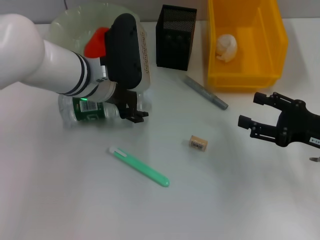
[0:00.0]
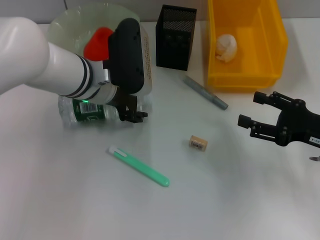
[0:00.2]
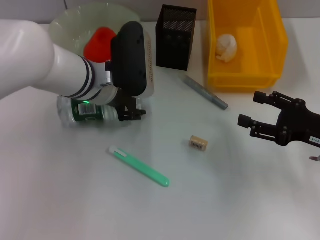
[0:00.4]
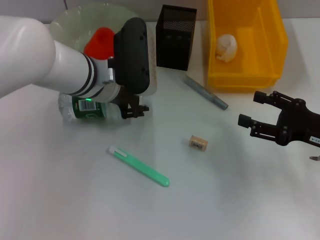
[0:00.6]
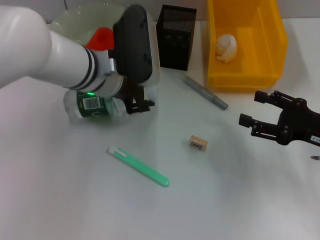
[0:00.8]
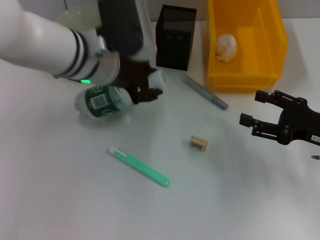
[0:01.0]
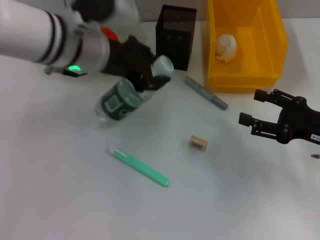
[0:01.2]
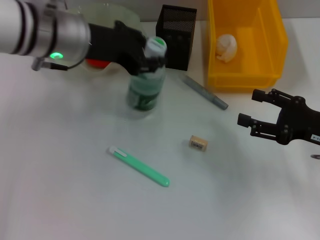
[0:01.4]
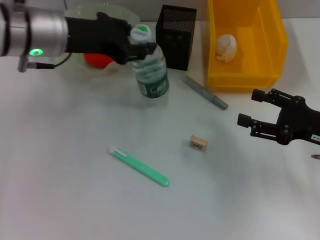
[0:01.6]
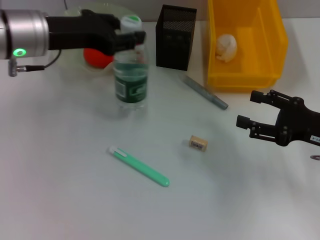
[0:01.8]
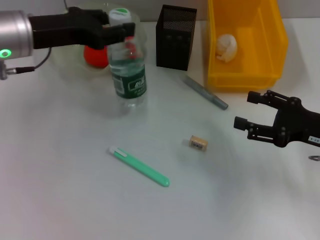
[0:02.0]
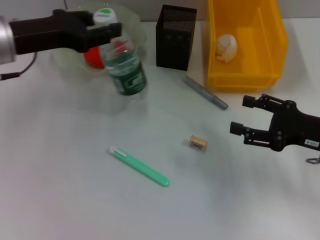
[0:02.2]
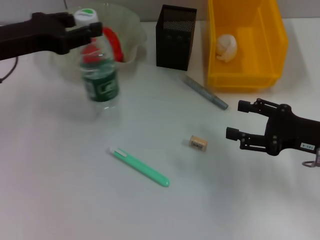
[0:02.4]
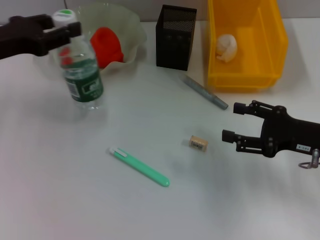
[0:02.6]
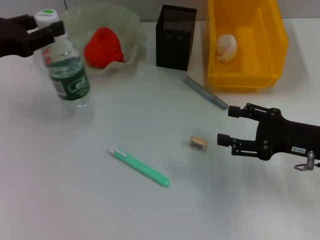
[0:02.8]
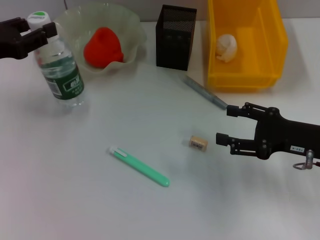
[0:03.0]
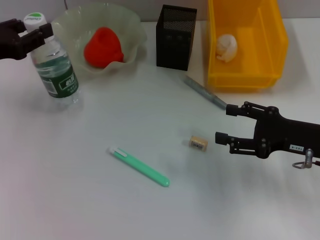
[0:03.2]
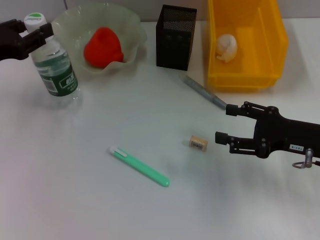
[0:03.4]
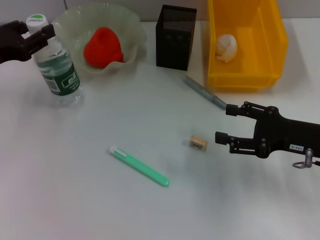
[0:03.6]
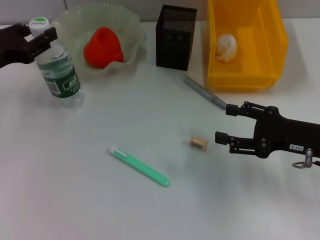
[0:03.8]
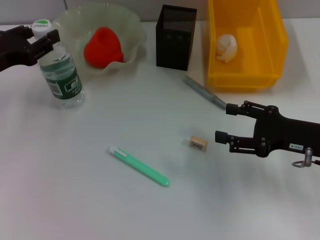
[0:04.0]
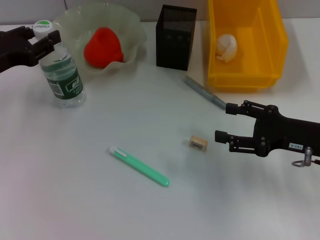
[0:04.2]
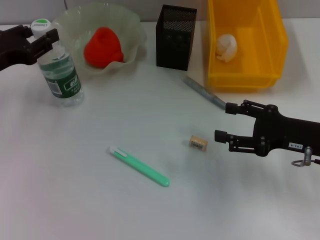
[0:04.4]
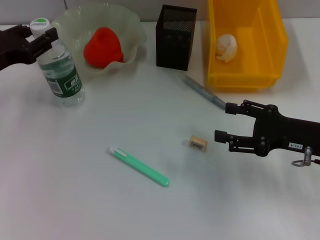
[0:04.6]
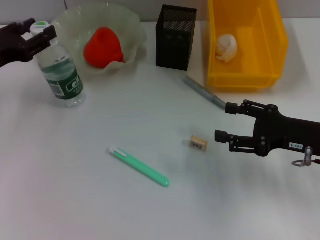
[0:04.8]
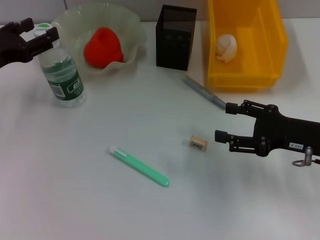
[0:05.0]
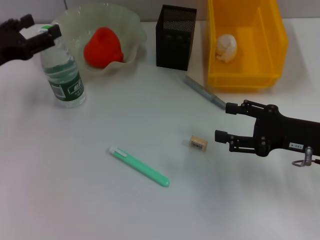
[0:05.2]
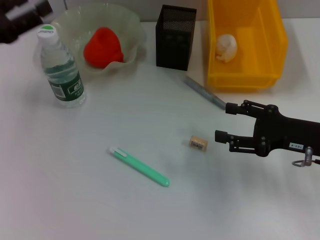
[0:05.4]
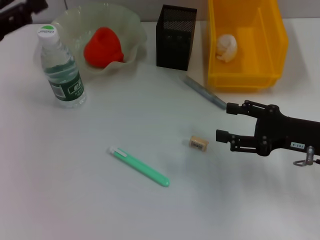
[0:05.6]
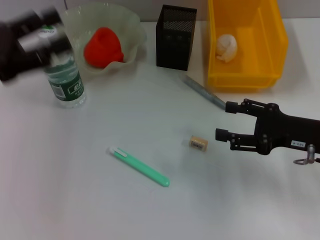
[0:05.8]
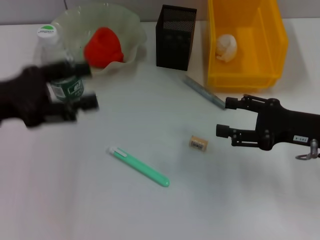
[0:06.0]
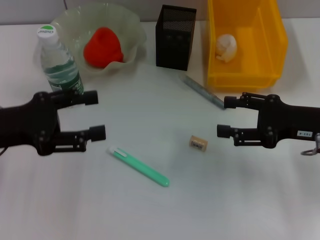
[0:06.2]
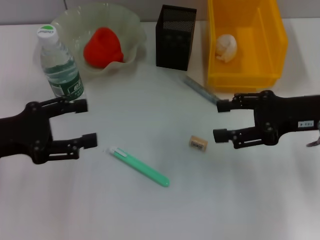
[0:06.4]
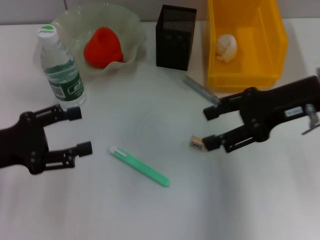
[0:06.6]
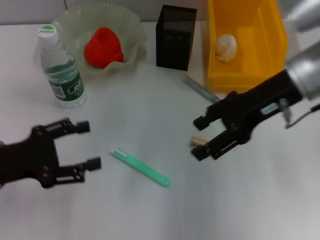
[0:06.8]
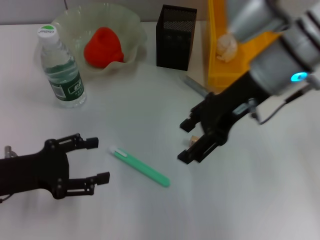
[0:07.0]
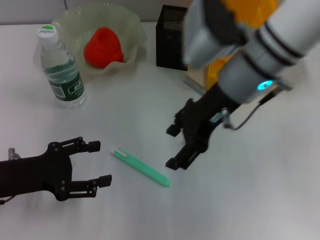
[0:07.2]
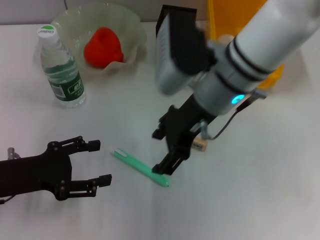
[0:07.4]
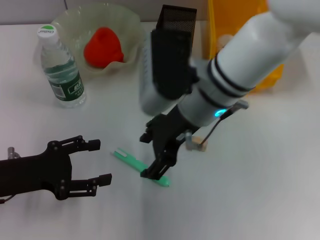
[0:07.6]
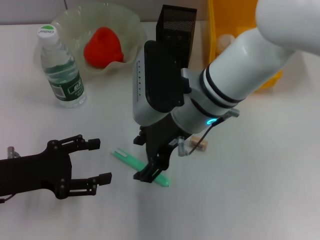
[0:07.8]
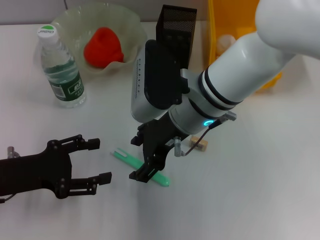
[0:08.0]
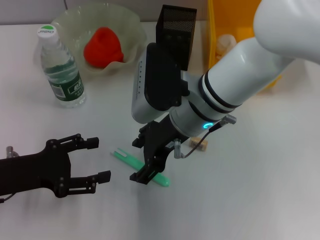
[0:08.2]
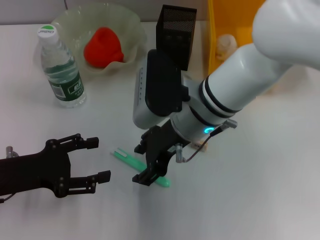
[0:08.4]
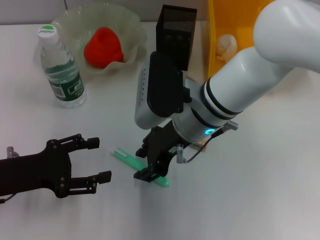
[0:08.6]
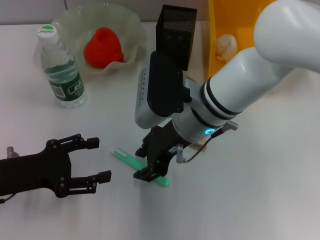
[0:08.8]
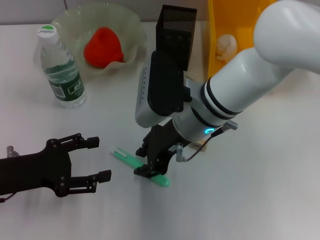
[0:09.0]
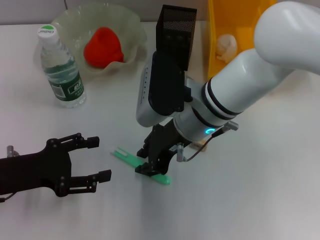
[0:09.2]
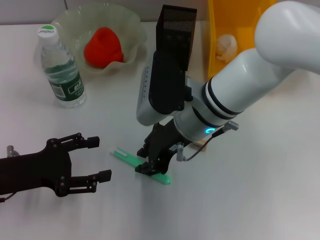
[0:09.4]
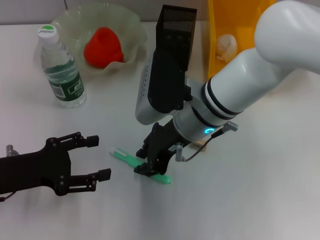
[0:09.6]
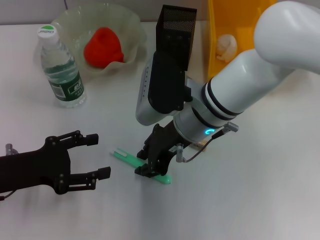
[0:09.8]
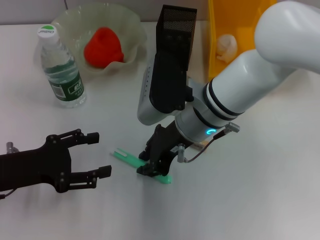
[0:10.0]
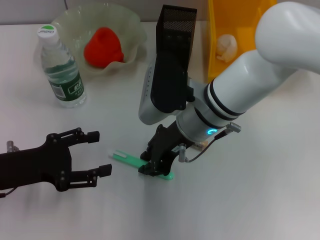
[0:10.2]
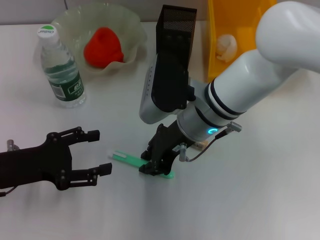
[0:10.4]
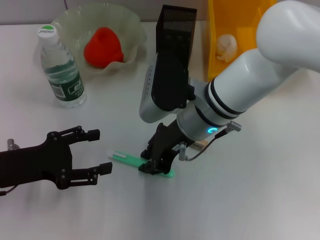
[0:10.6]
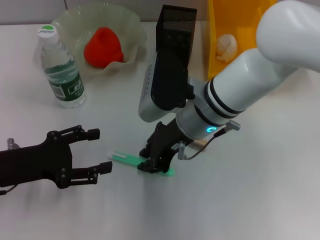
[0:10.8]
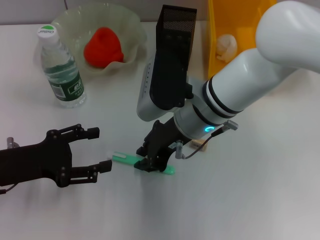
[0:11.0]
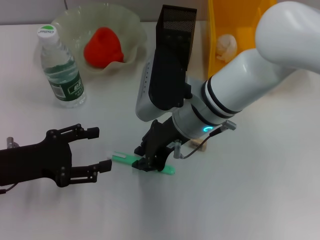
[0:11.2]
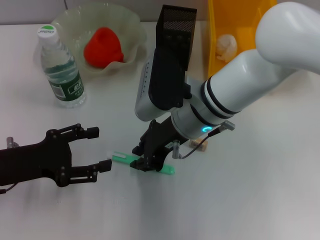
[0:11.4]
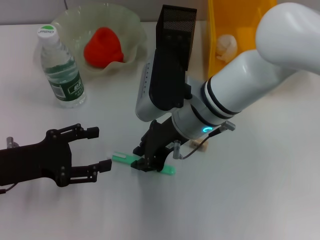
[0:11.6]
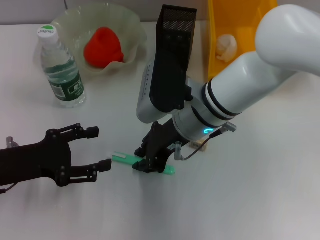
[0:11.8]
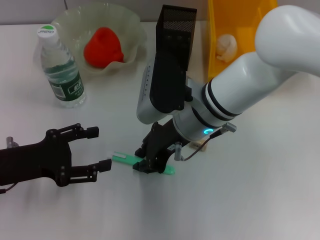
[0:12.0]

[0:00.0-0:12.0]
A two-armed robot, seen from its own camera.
Step, 0:00.6 to 0:05.2: Place the water bottle on the table with the left hand.
0:00.0 to 0:01.6: The left gripper moves upward and to the left, approximately 10 cm, and closes its fingers.
0:01.6 to 0:03.0: The left gripper travels to the left by about 15 cm.
0:03.0 to 0:04.4: The grippers move only a little.
0:04.4 to 0:06.0: The left gripper heads backward, covering about 5 cm, and opens its fingers.
0:06.0 to 0:07.6: The left gripper shifts some 10 cm downward. The right gripper travels to the left by approximately 20 cm.
0:07.6 to 0:09.0: The right gripper closes.
0:09.0 to 0:12.0: Both grippers stay put.

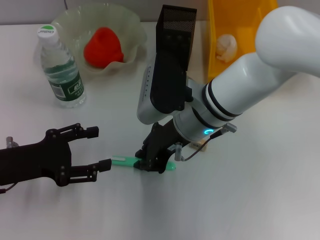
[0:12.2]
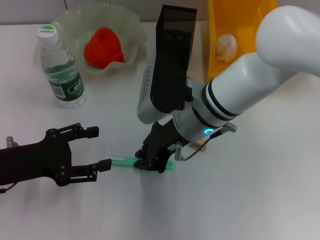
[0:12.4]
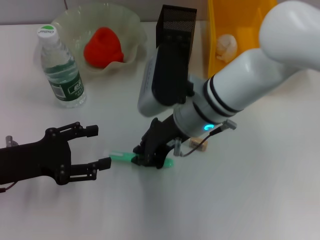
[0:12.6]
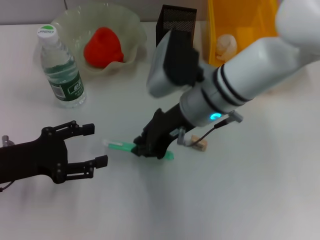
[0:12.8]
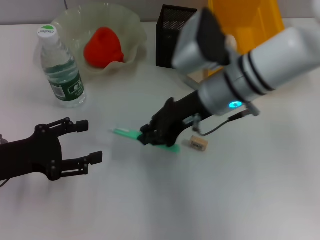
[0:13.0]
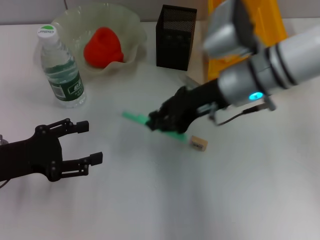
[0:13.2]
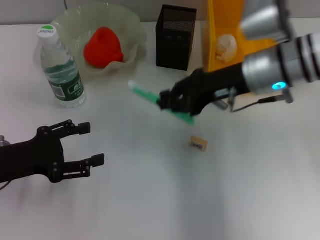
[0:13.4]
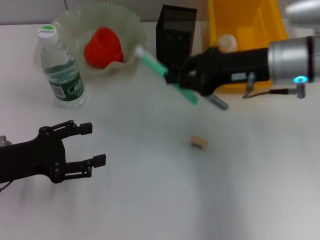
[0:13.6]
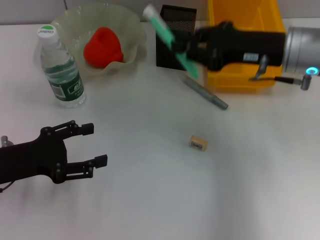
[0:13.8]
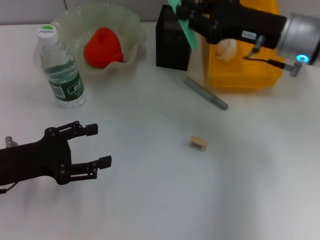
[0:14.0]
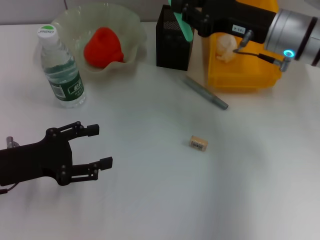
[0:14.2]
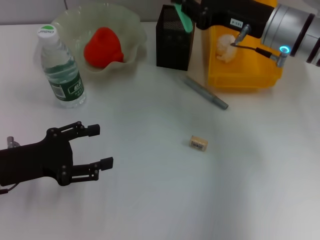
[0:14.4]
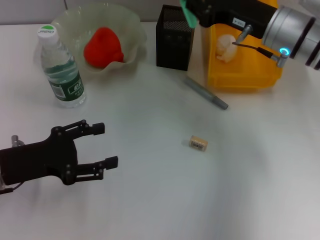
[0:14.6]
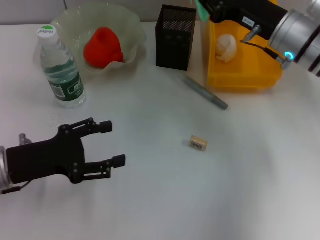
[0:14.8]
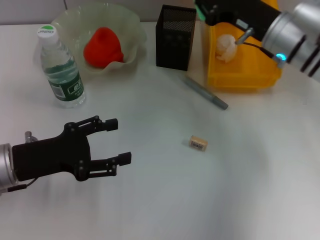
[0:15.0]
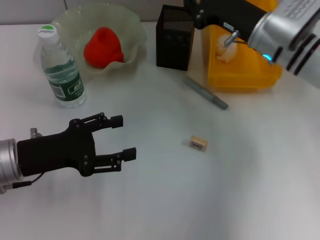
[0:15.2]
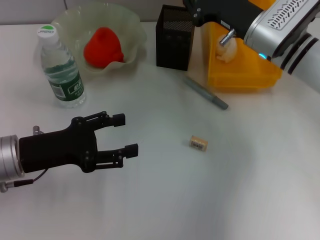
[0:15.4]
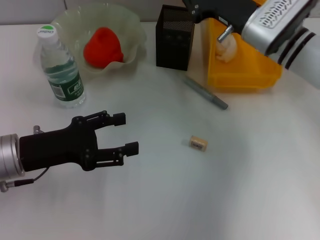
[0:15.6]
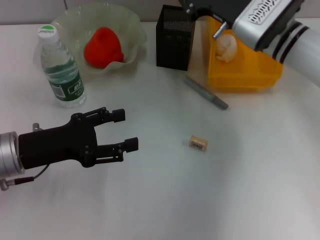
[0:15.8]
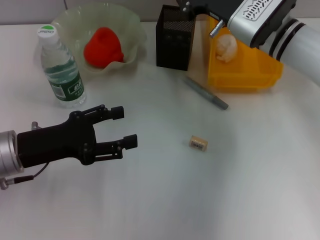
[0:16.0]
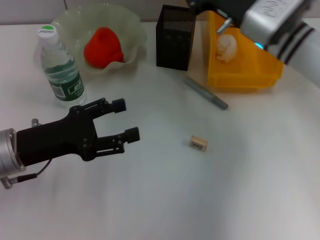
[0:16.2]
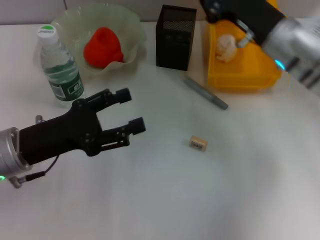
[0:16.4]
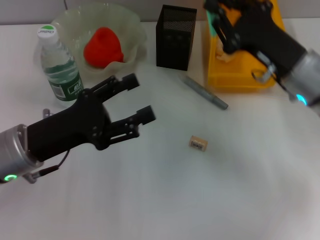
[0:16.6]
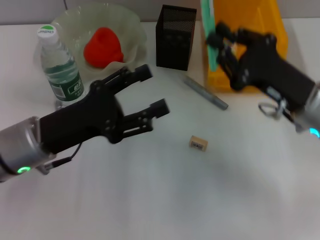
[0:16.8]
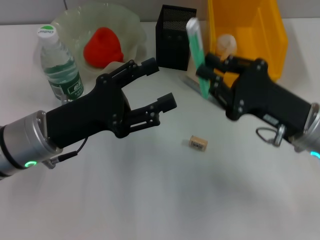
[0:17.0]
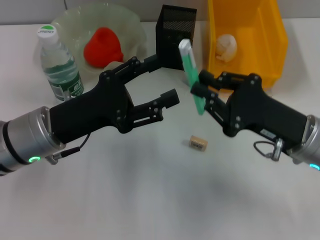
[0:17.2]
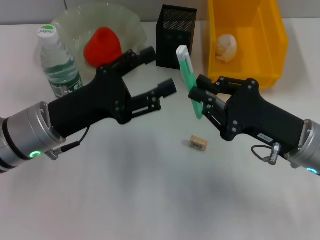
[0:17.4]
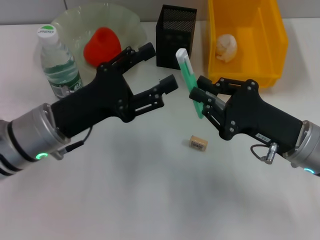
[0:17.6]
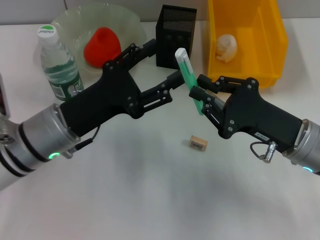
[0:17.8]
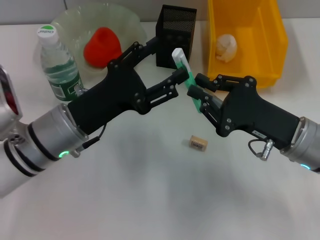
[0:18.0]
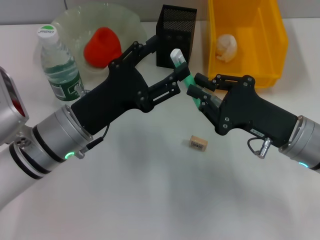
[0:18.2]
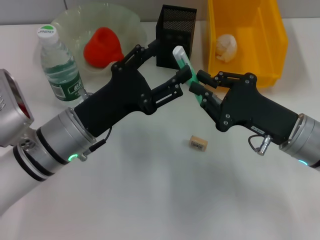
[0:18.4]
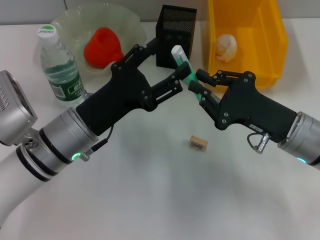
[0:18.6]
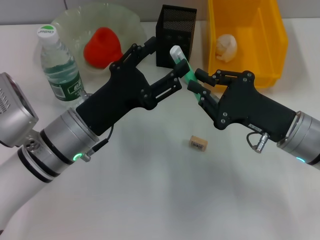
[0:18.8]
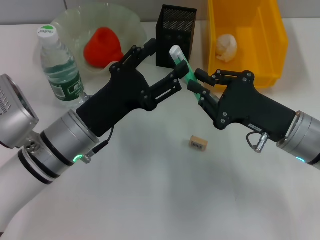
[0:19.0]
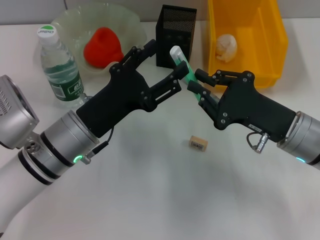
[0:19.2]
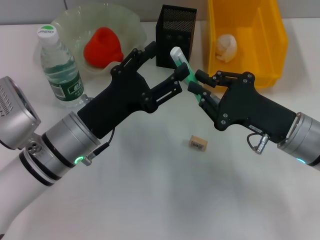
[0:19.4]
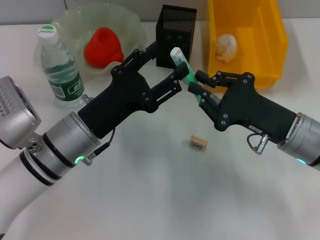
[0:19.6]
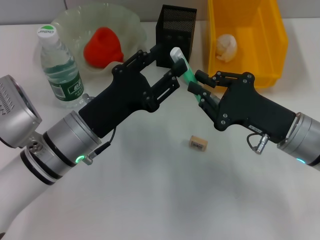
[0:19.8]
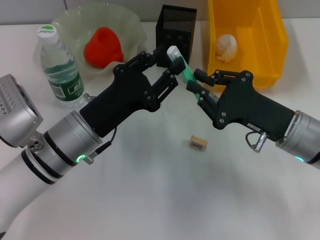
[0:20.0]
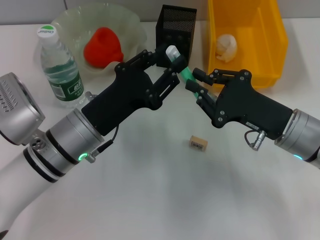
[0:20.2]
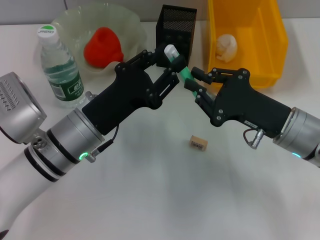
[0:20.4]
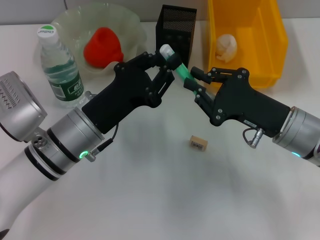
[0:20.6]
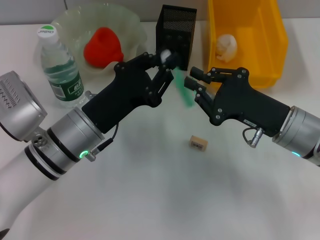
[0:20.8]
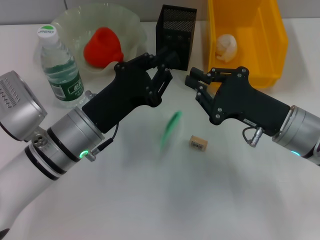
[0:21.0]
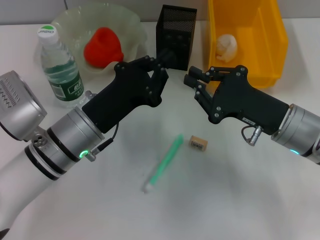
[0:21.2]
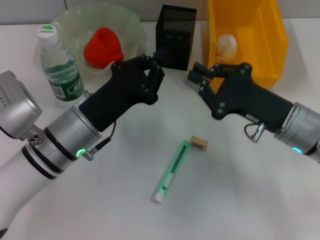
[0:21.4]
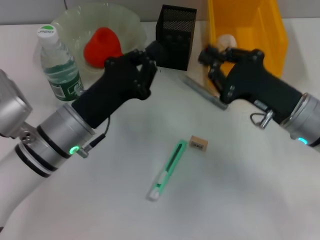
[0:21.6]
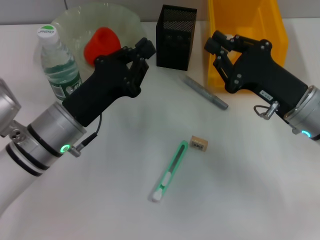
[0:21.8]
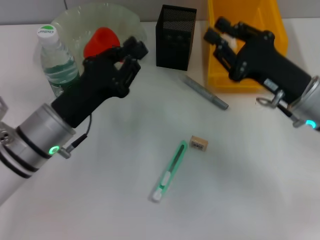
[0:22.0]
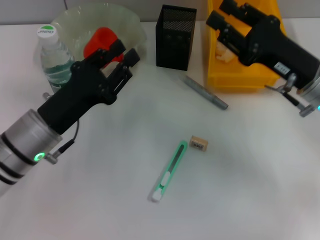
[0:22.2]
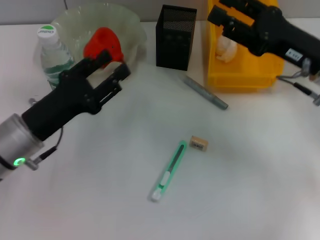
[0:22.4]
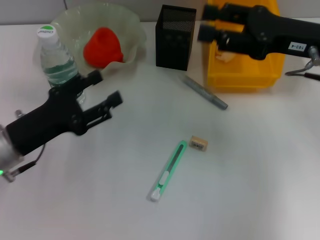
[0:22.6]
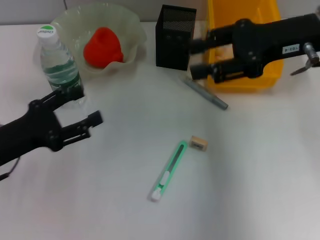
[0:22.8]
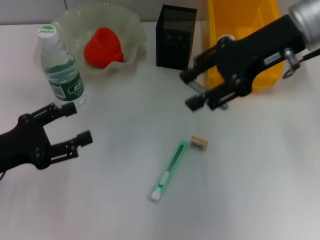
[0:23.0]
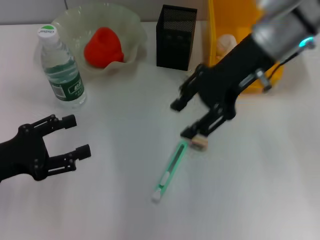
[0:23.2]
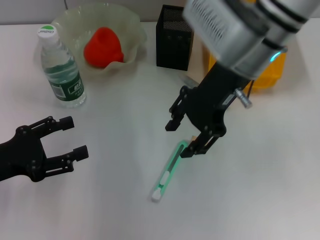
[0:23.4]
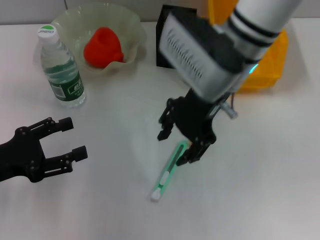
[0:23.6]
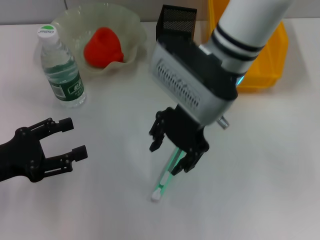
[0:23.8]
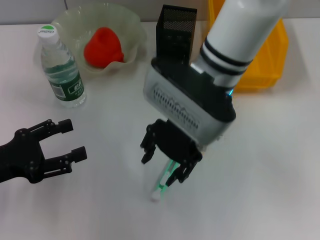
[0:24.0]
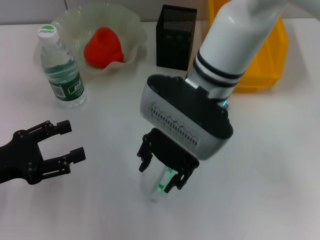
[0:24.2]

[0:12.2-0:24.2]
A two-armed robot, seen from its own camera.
0:12.2 to 0:13.8: The right gripper moves to the right, about 15 cm.
0:13.8 to 0:15.2: The right gripper moves about 5 cm.
0:15.2 to 0:16.6: The right gripper shifts roughly 5 cm backward.
0:16.6 to 0:18.2: The left gripper shifts about 5 cm to the right; the right gripper is displaced backward by about 5 cm.
0:18.2 to 0:19.8: The grippers move only a little.
0:19.8 to 0:21.2: The left gripper closes up.
0:21.2 to 0:22.6: The left gripper travels to the left by roughly 10 cm, and opens up; the right gripper is displaced upward and forward by approximately 10 cm, and opens up.
0:22.6 to 0:24.2: The left gripper heads to the left, covering some 5 cm, and opens up; the right gripper heads to the left, covering roughly 20 cm.
